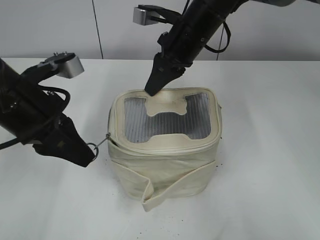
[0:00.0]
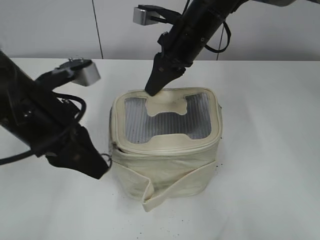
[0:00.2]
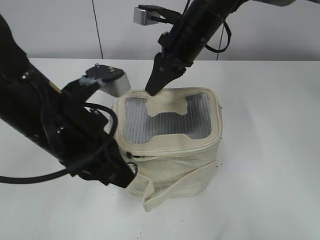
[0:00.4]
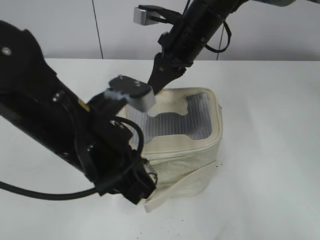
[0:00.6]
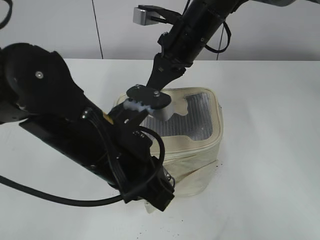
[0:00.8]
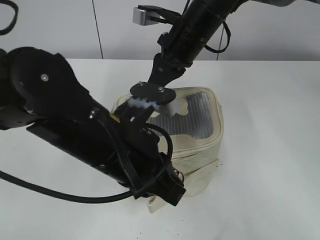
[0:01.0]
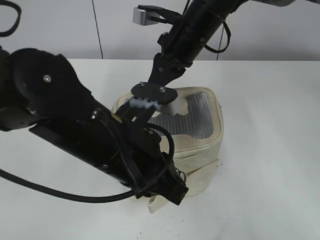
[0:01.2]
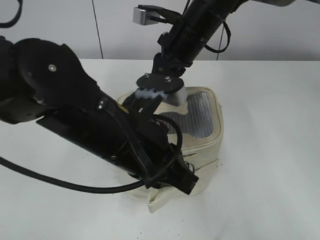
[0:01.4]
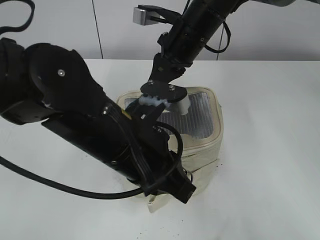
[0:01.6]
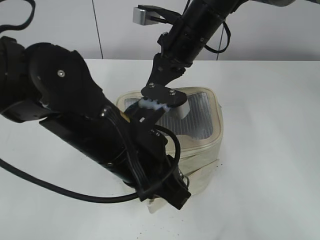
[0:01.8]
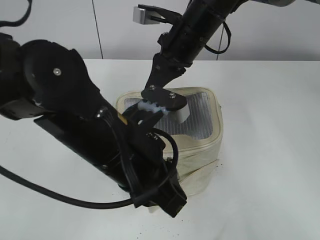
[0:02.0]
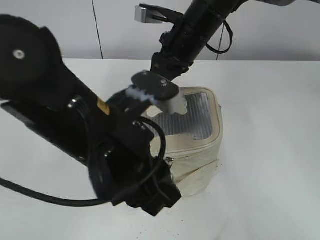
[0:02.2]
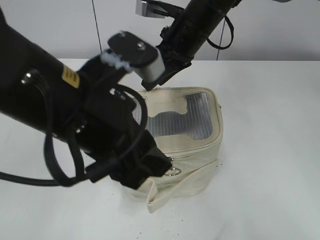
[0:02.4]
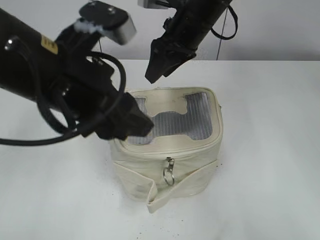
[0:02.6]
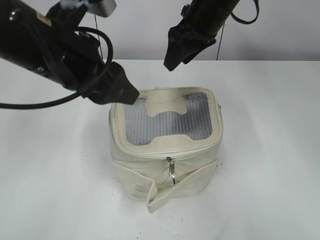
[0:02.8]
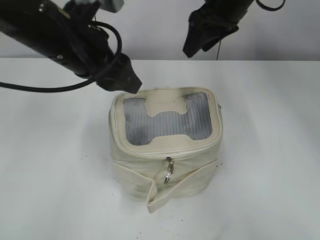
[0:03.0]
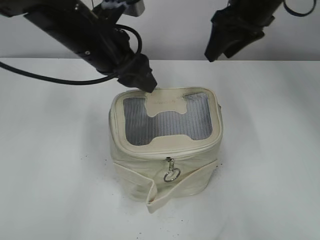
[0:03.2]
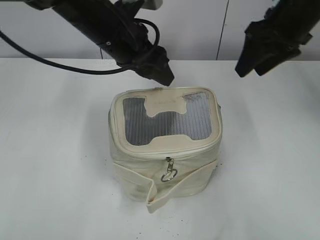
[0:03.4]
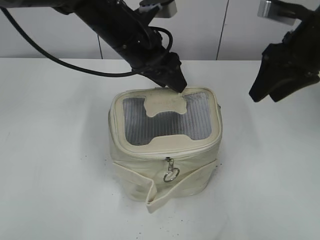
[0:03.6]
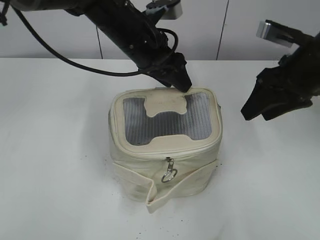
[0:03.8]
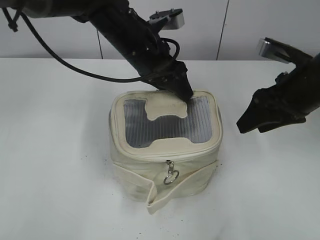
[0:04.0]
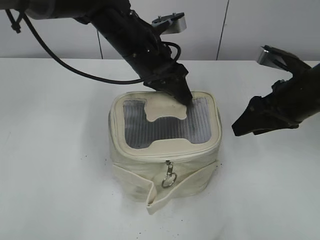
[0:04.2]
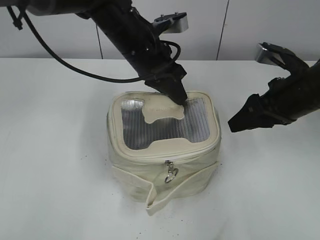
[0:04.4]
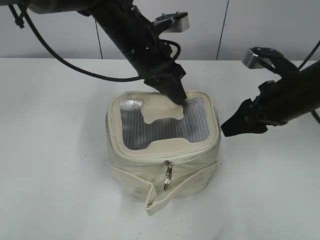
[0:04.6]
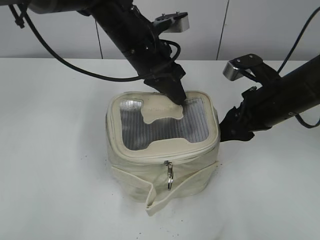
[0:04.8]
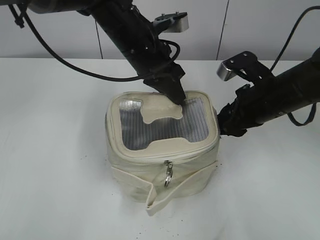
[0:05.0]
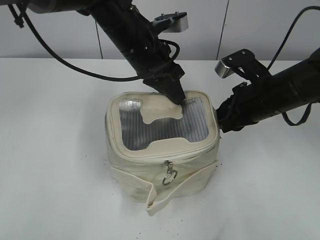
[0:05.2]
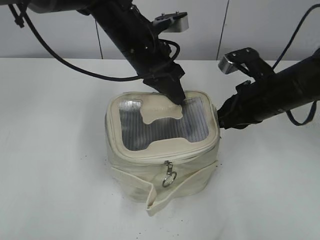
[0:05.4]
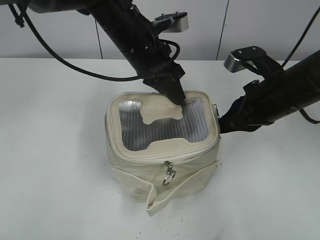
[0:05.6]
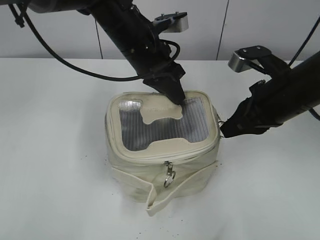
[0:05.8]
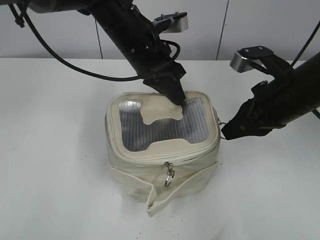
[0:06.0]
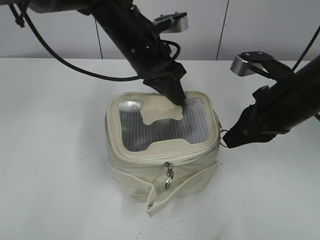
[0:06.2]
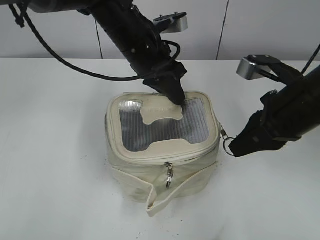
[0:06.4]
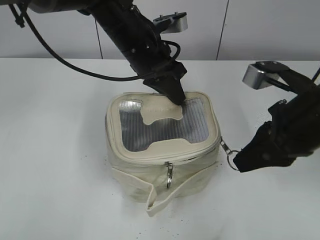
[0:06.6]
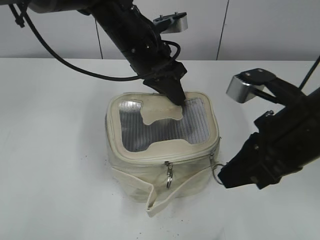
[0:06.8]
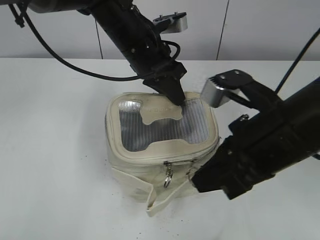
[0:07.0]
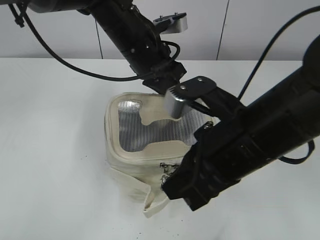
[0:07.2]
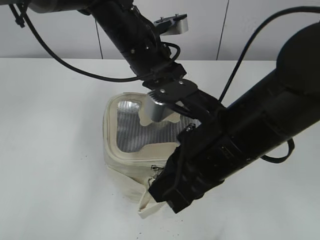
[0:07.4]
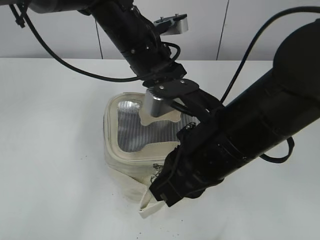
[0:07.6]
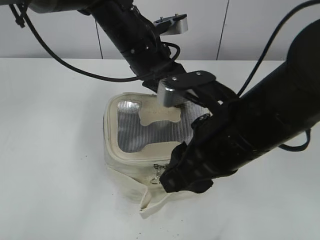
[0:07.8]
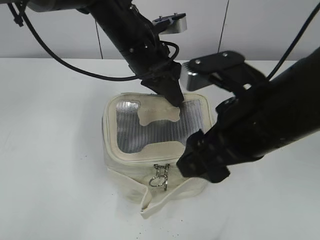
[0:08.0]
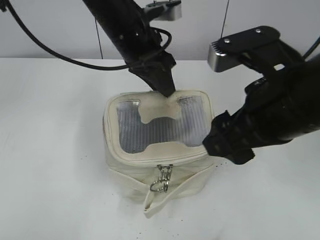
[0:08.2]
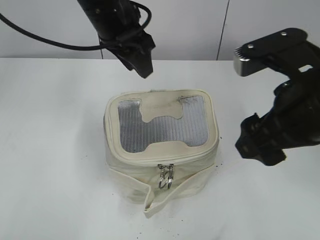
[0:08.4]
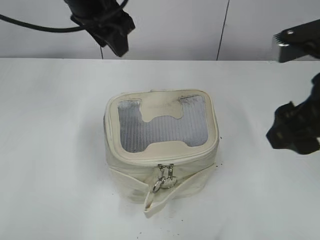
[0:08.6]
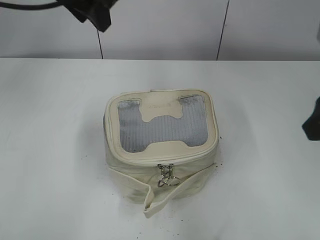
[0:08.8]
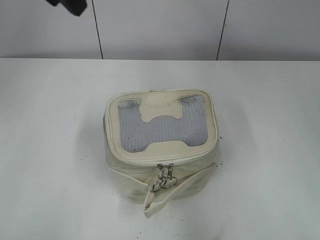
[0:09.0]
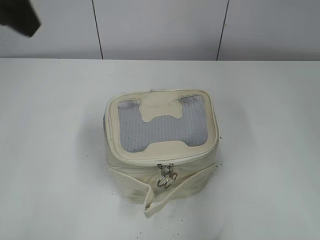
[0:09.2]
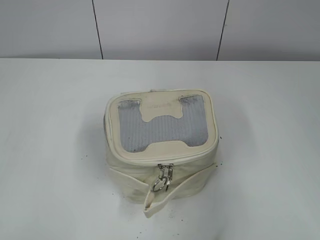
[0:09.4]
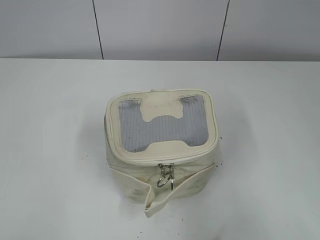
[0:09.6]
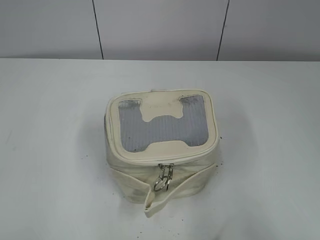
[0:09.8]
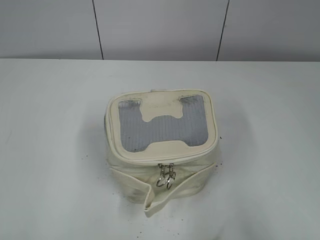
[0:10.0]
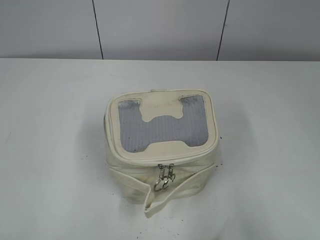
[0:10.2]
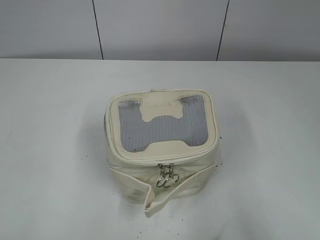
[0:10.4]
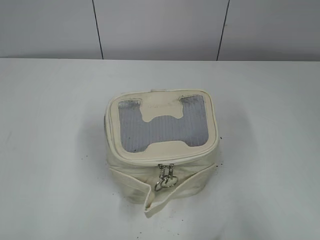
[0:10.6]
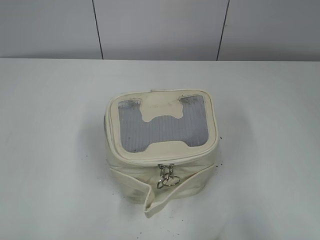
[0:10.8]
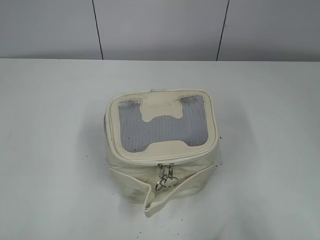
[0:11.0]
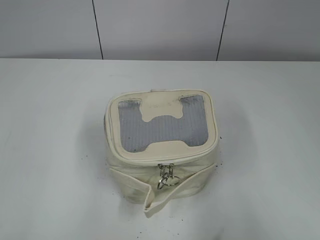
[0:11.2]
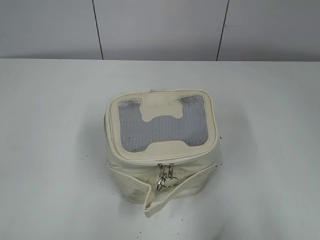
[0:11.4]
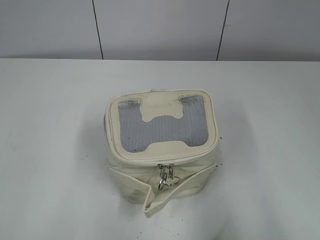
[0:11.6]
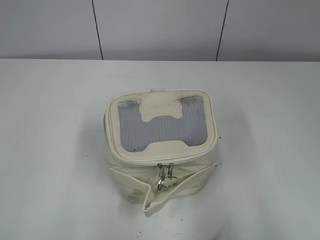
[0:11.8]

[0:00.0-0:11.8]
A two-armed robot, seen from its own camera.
Step, 0:00.0 to 0:02.0: Zip up the bag with your left hand.
Step, 0:02.2 to 0:02.6: Hold the bag with your right hand.
Step, 0:03.0 to 0:07.6: Zip up the bag with your right hand.
Step, 0:08.0 to 0:08.2: Hold the bag with your left hand.
0:00.0 to 0:01.4: The left gripper goes about 15 cm to the right and backward.
0:01.4 to 0:03.0: The left gripper travels forward, to the left and upward by about 15 cm, and opens its fingers. The right gripper goes approximately 10 cm upward and to the right, and opens its fingers.
0:03.0 to 0:04.4: The left gripper moves to the right, forward and downward, roughly 15 cm, and closes; the right gripper shifts about 20 cm backward, to the right and downward.
0:04.4 to 0:06.0: The right gripper closes its fingers.
0:06.0 to 0:07.4: The right gripper is displaced to the left and backward by some 15 cm.
0:07.4 to 0:08.8: The left gripper is displaced upward and to the left by some 15 cm, and opens, while the right gripper travels to the right and upward by roughly 15 cm, and opens its fingers.
0:08.8 to 0:10.4: The left gripper moves backward and to the left, some 40 cm; the right gripper is displaced backward by approximately 20 cm.

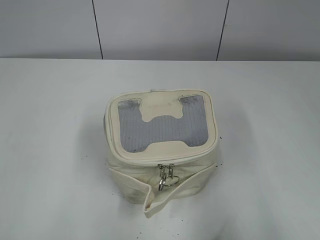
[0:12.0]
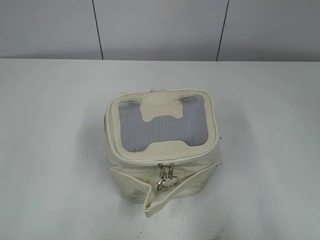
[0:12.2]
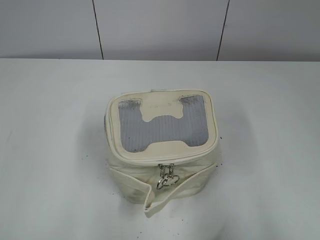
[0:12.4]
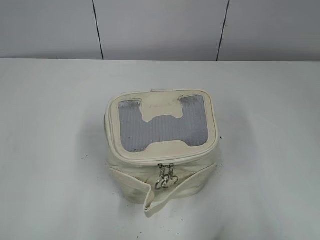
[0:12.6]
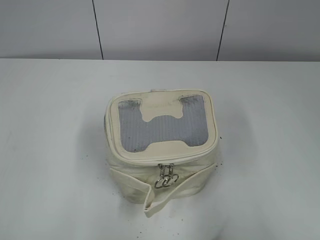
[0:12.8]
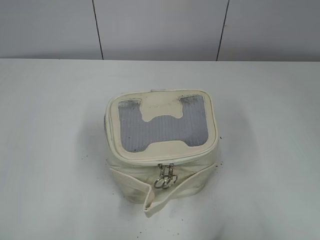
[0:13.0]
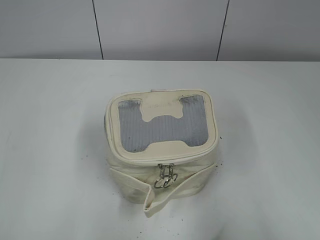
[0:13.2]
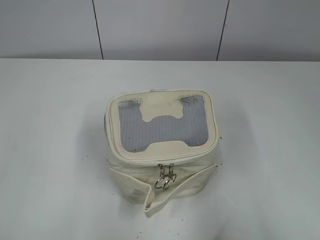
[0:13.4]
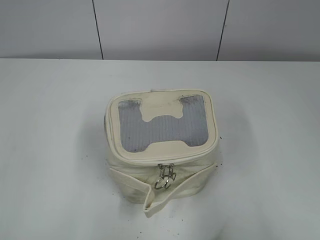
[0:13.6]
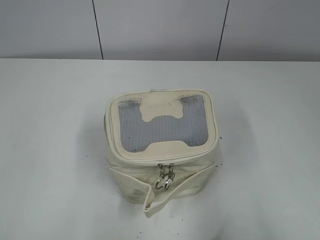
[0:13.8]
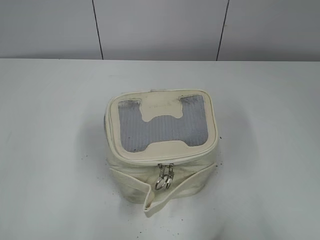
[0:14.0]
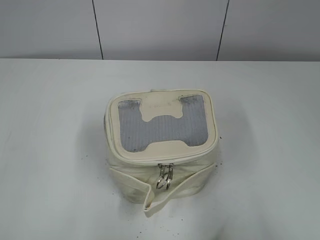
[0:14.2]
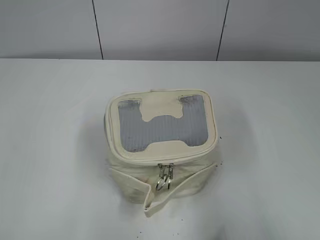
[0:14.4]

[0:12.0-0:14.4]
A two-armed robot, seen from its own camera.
0:13.2 to 0:14.4: Neither gripper changes place.

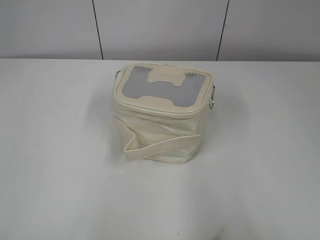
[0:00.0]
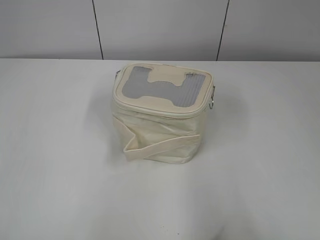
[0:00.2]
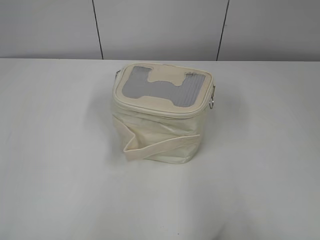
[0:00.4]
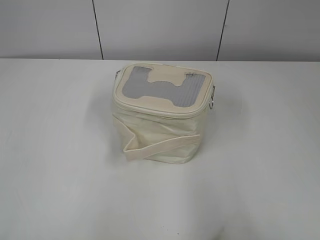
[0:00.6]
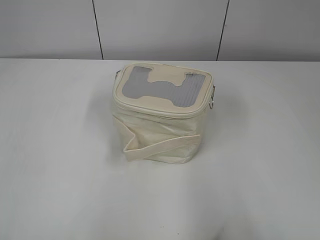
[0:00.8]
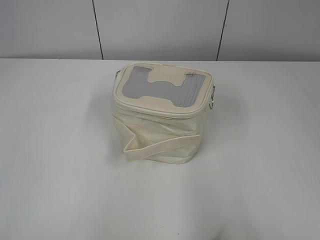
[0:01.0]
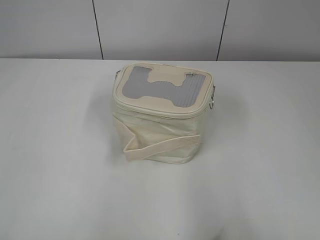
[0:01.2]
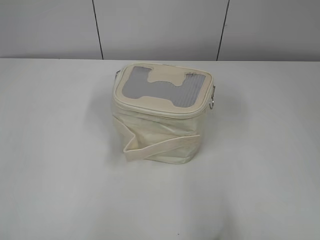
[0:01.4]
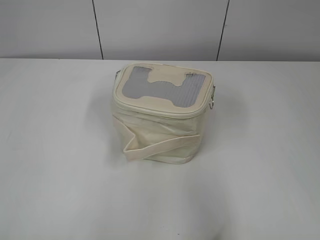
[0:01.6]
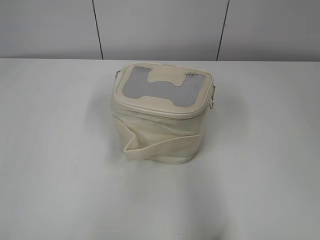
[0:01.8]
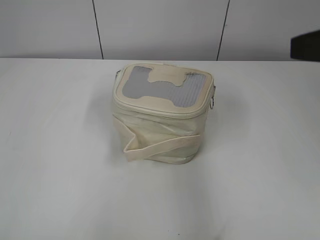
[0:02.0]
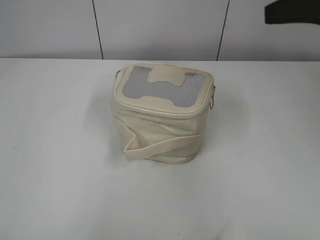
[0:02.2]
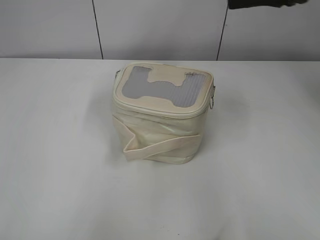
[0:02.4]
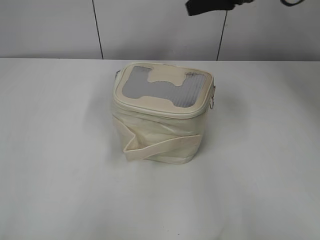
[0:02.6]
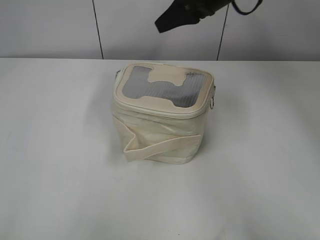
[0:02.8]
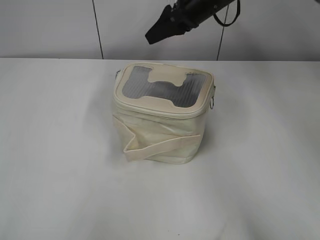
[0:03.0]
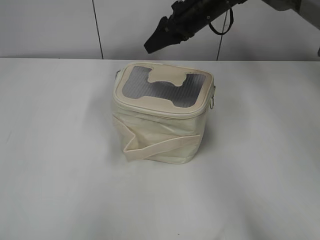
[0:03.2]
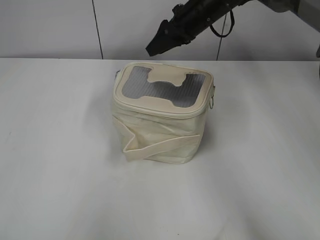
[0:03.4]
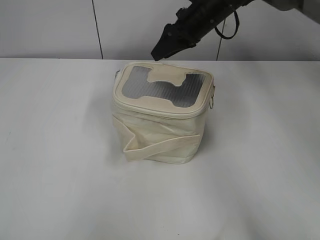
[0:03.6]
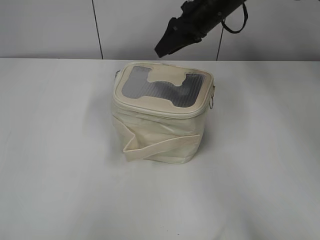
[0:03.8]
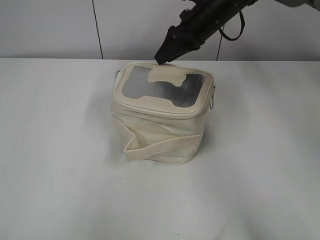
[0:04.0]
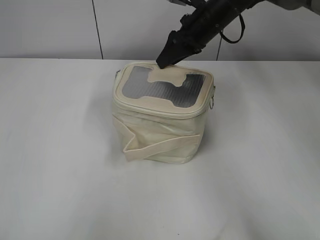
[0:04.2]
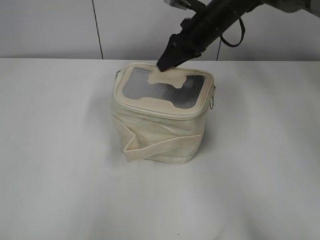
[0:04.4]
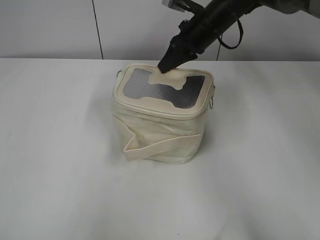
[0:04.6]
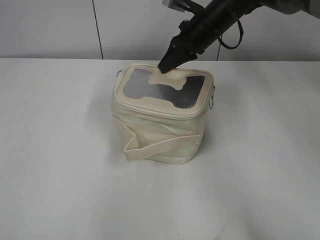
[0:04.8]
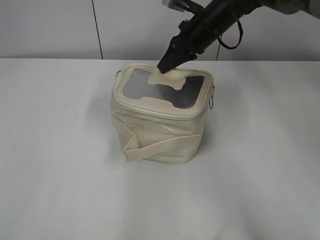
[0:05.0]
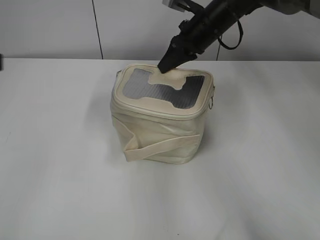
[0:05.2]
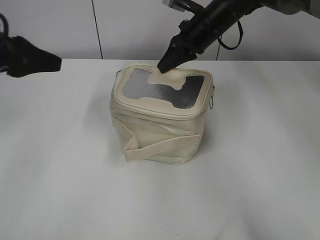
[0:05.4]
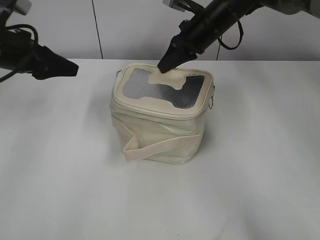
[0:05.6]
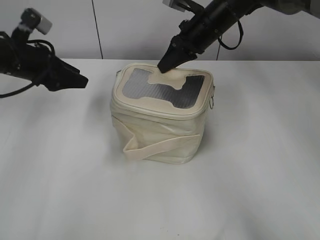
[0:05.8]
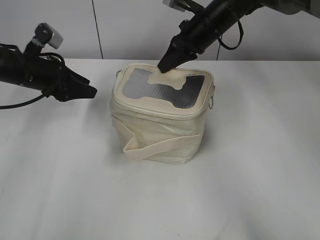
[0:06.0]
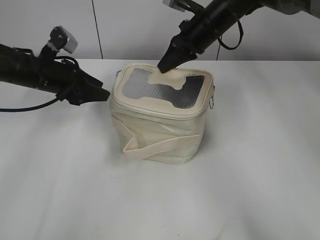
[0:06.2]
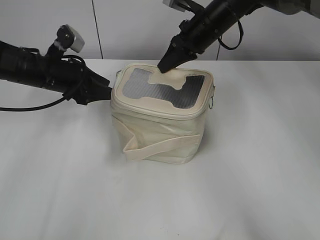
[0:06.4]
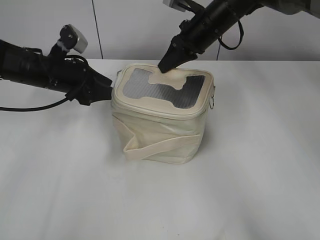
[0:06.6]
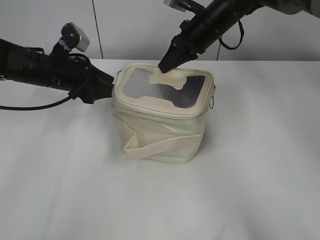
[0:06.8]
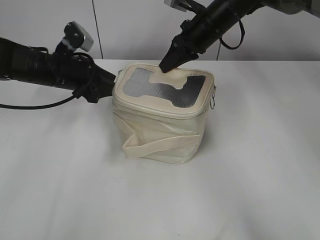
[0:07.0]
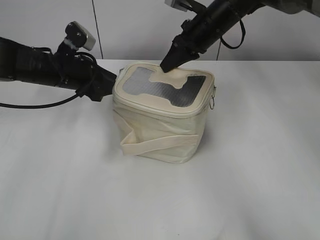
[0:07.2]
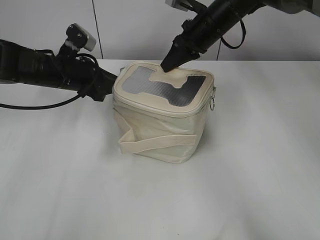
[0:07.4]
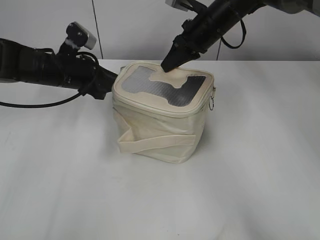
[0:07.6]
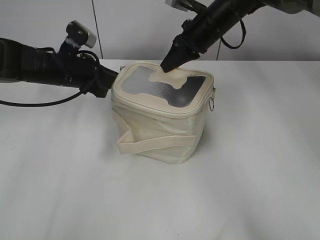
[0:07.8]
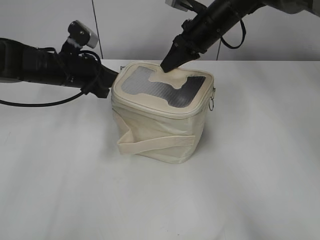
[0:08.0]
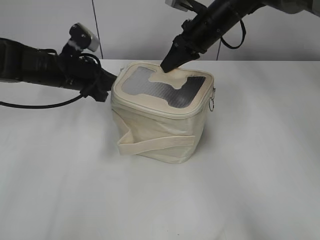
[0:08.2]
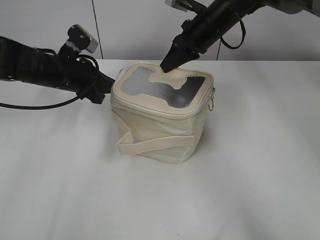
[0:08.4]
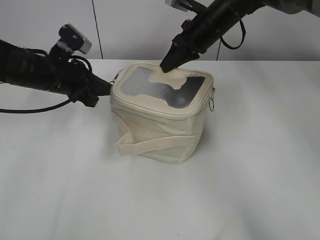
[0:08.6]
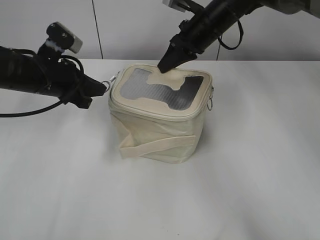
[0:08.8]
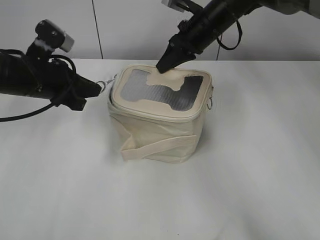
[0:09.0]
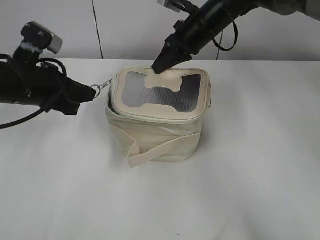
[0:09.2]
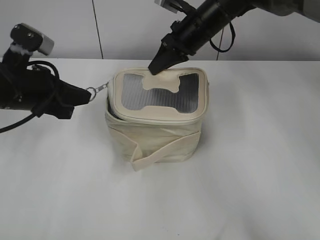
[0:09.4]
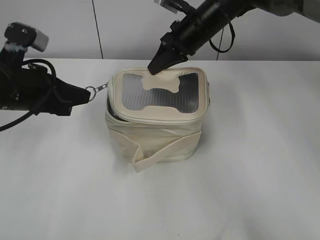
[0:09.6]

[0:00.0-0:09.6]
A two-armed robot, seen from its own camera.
0:01.6 to 0:03.2: The right gripper goes some 50 cm forward.
0:03.2 to 0:04.8: The right gripper closes its fingers.
0:04.8 to 0:06.4: The left gripper is displaced forward by approximately 40 cm, and opens up.
0:06.4 to 0:08.0: The left gripper closes.
0:08.0 to 0:09.6: The left gripper shifts roughly 15 cm backward and upward.
